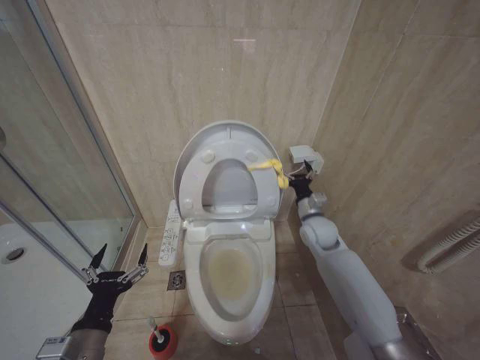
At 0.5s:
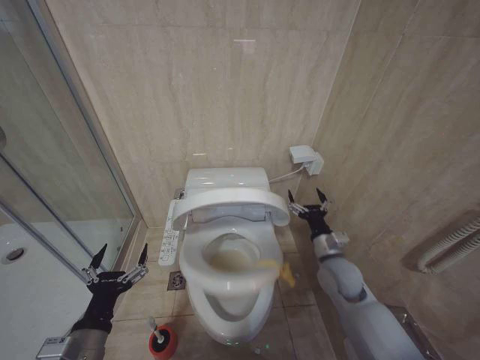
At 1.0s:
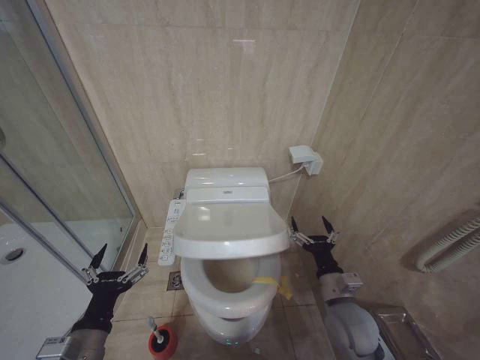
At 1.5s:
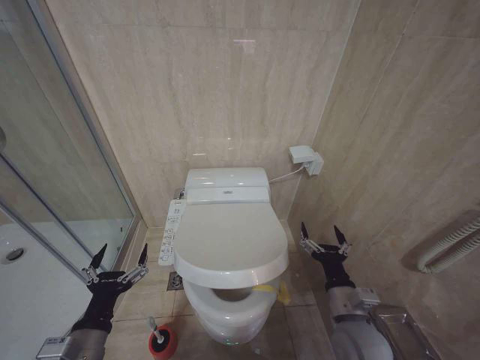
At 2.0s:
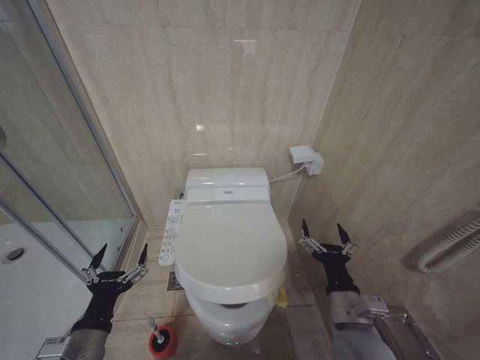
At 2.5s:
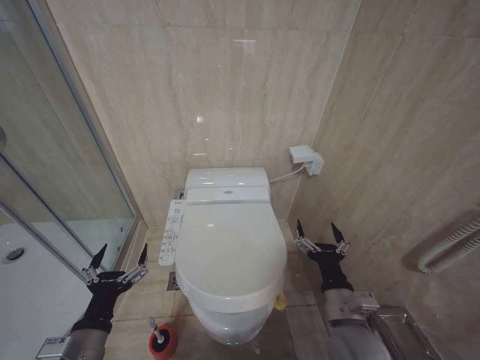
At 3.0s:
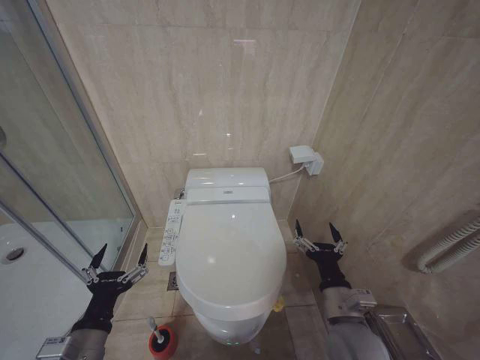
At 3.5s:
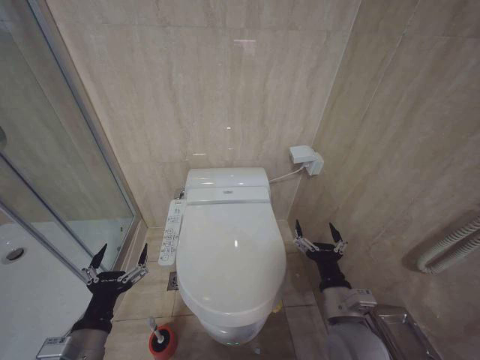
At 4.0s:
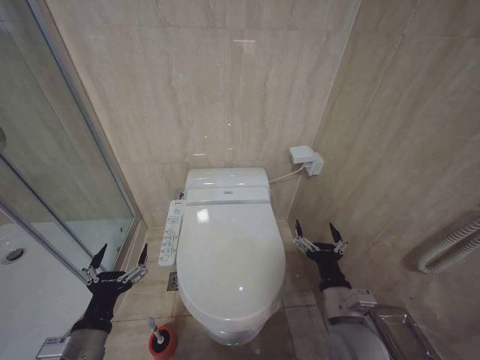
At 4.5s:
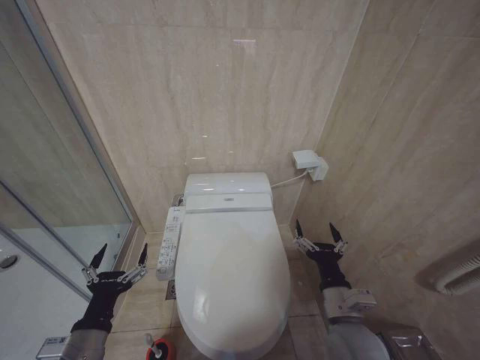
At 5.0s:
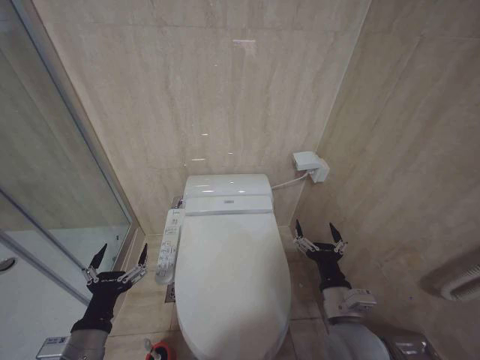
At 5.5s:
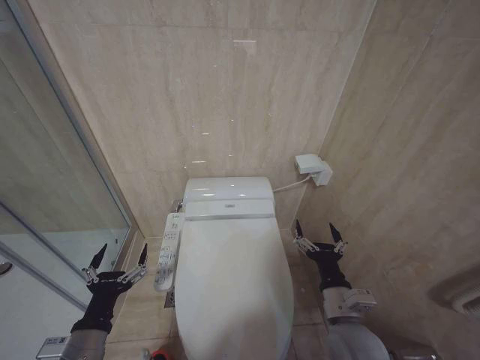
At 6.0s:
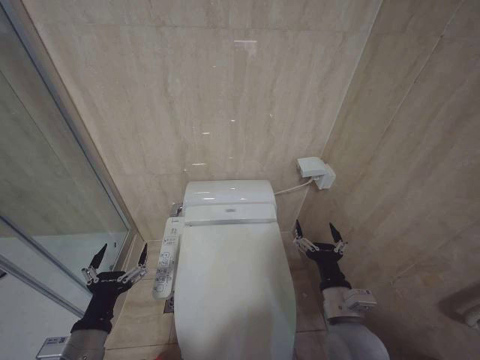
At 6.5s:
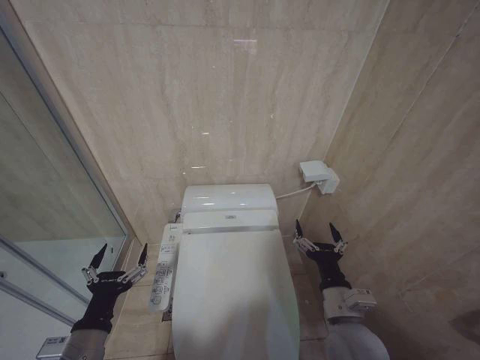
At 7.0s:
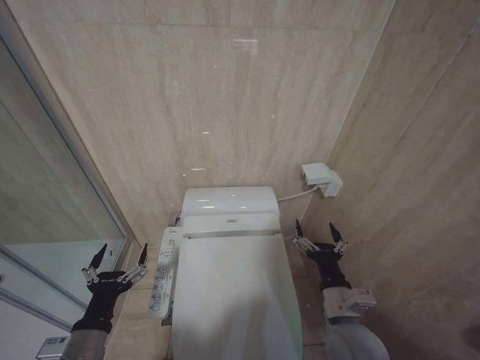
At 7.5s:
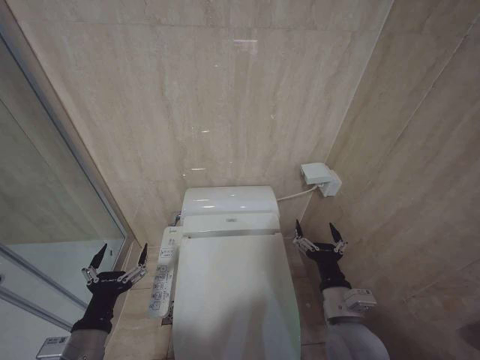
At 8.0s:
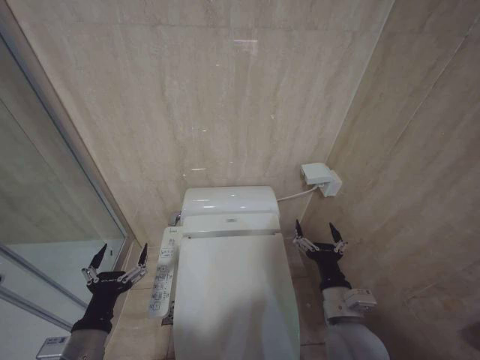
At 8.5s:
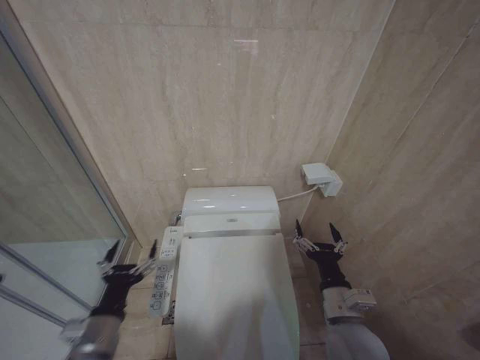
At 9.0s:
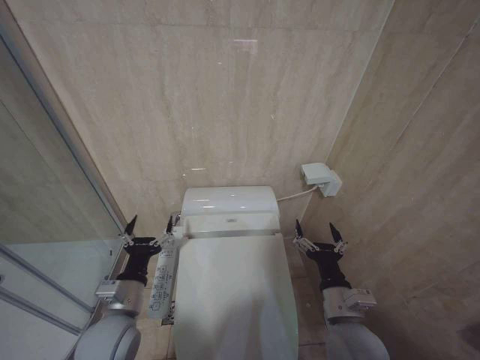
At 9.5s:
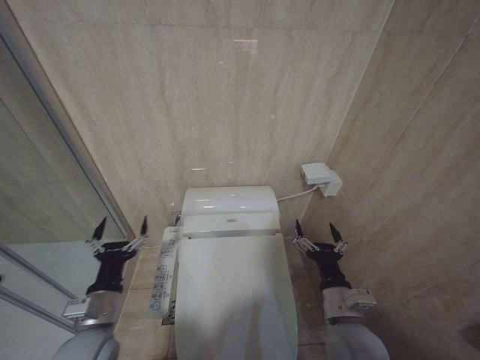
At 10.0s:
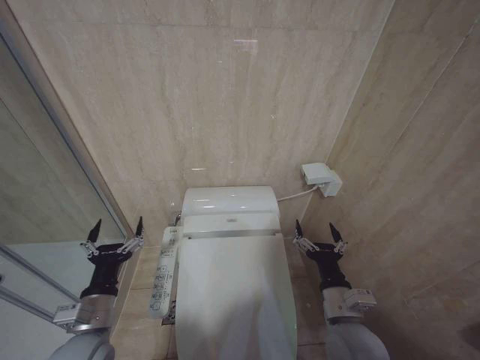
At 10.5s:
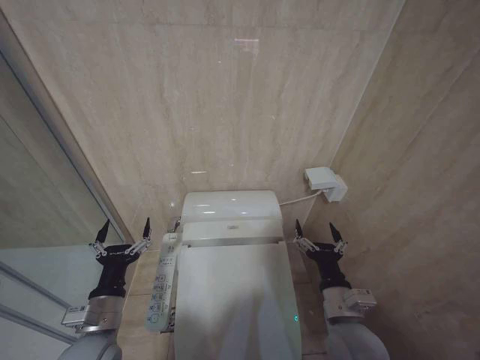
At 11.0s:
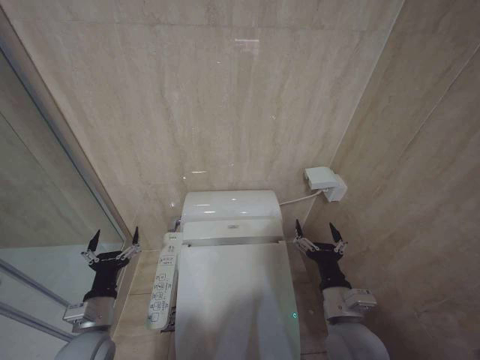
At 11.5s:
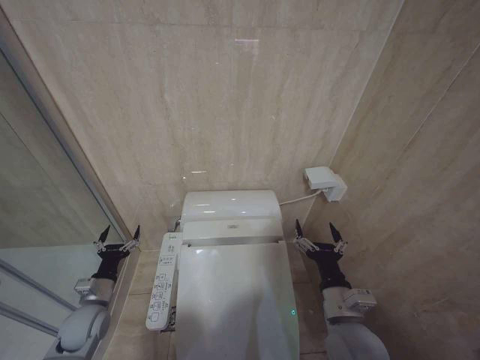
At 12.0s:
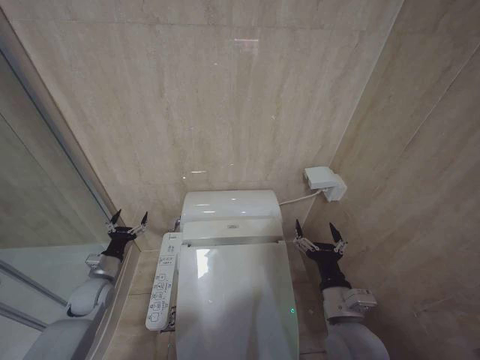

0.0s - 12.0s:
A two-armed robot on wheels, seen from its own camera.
Task of the whole recording: Open the toilet lid, clean the toilet bowl with a toilet brush, close the toilet lid, and flush.
0.0s - 2.0s: The right gripper shifts approximately 30 cm backward.
2.0s - 8.0s: Neither gripper changes place.
8.0s - 10.0s: The left gripper shifts approximately 5 cm forward.
10.0s - 12.0s: The left gripper travels forward, downward and to the left by about 20 cm.

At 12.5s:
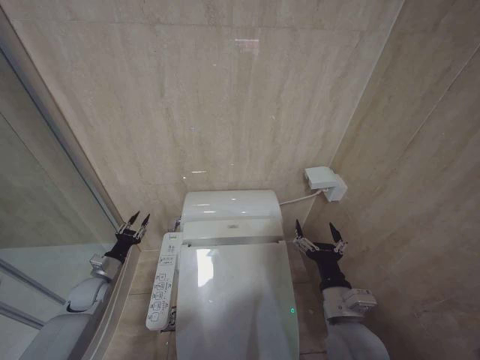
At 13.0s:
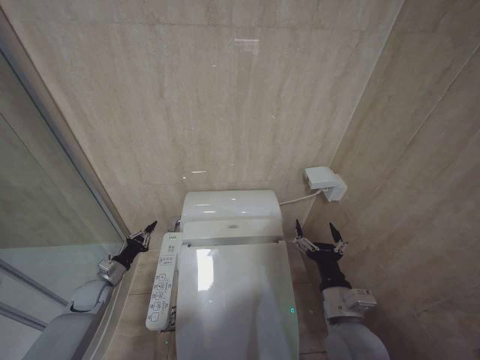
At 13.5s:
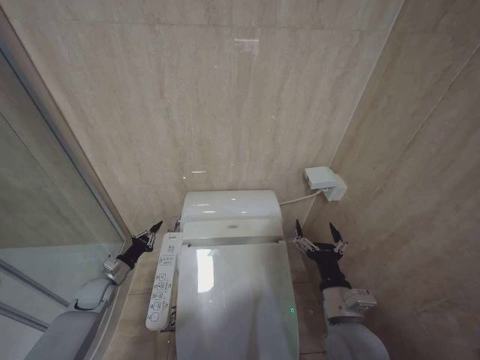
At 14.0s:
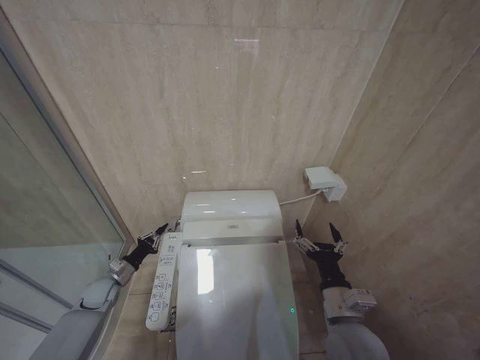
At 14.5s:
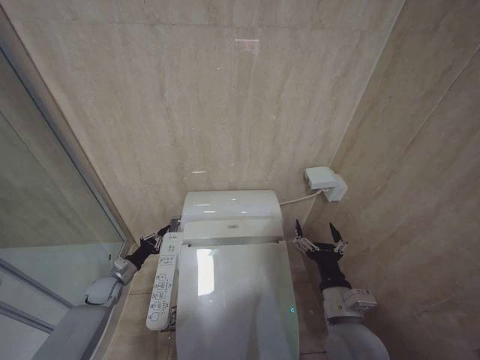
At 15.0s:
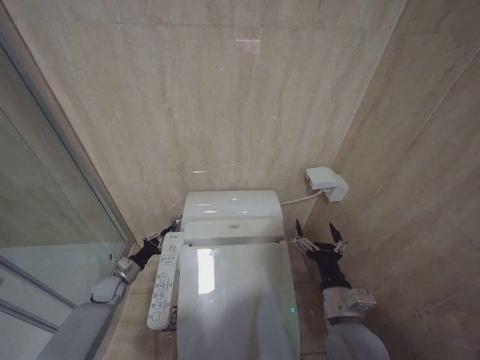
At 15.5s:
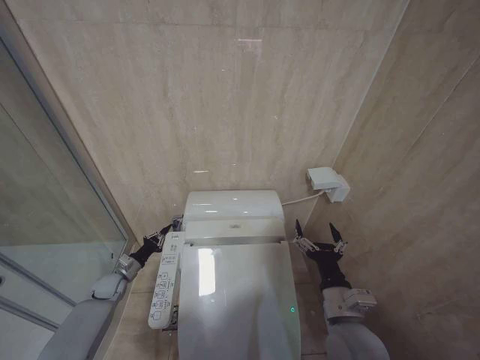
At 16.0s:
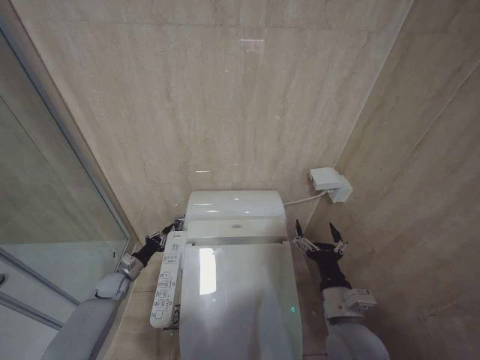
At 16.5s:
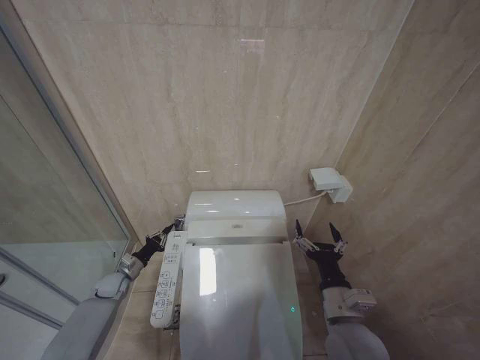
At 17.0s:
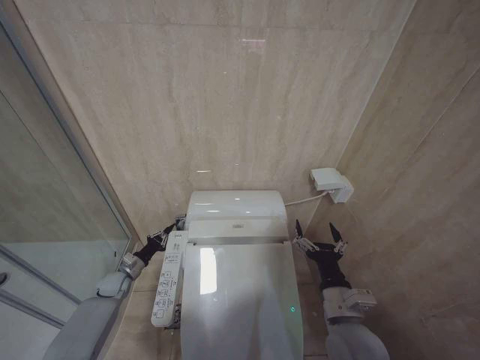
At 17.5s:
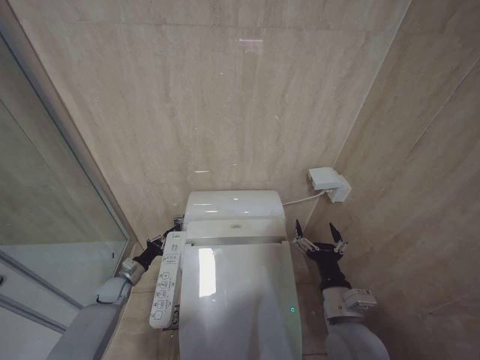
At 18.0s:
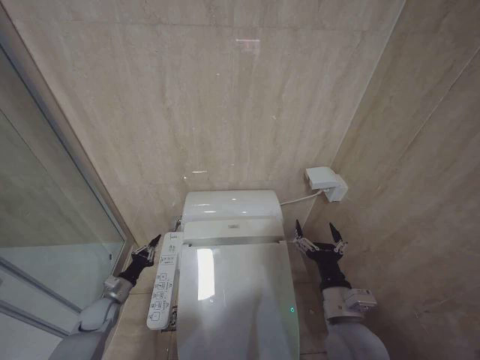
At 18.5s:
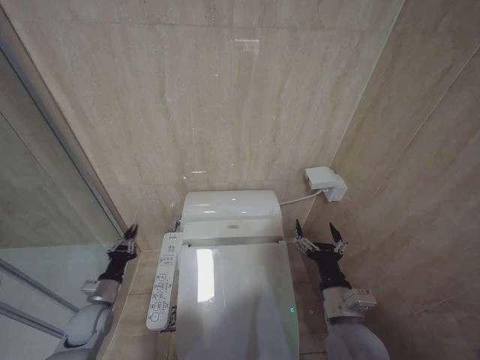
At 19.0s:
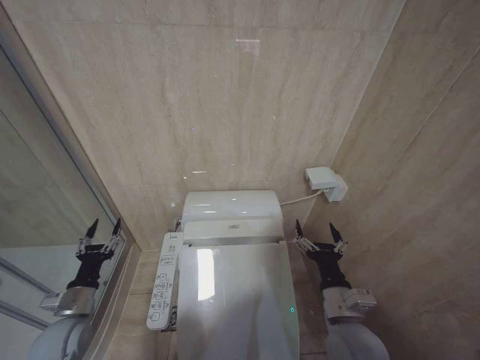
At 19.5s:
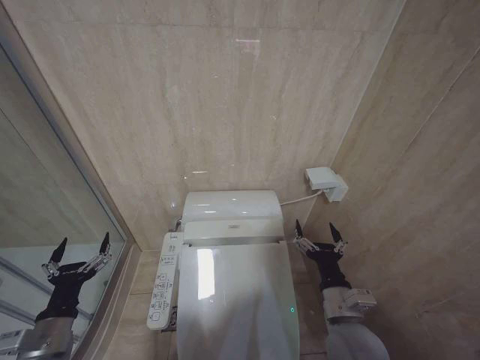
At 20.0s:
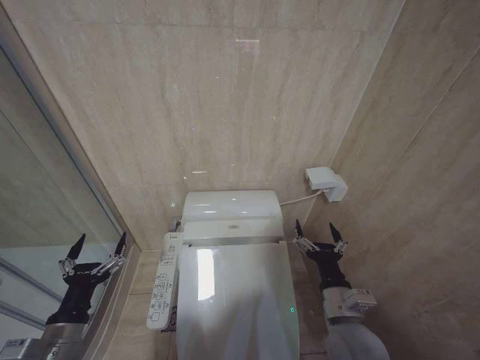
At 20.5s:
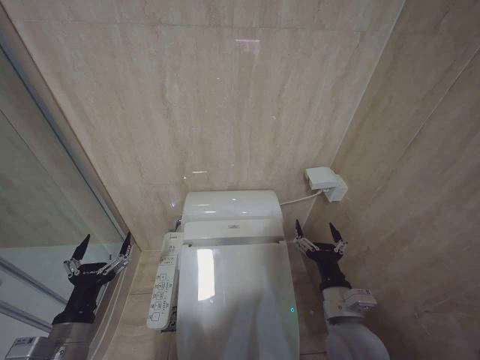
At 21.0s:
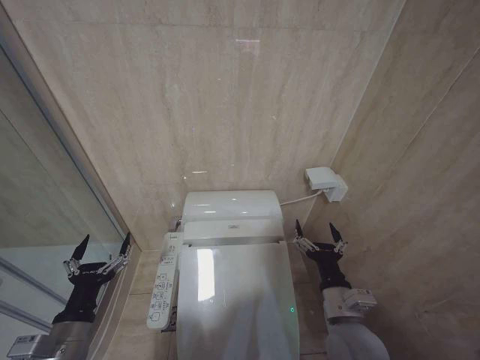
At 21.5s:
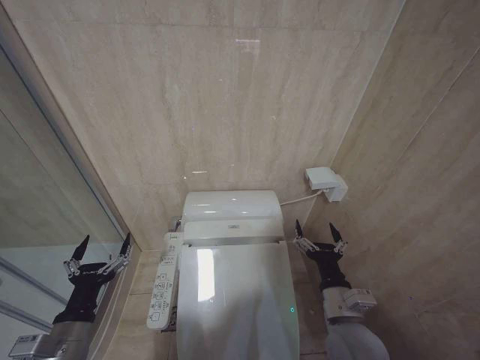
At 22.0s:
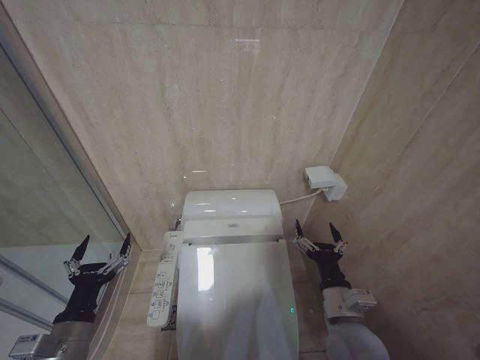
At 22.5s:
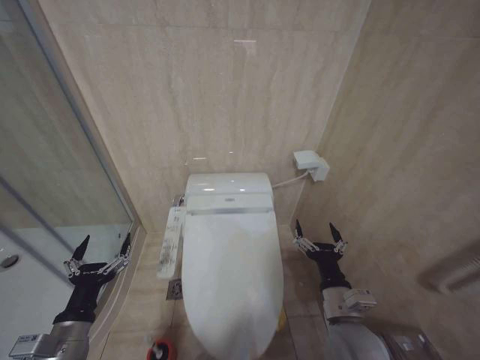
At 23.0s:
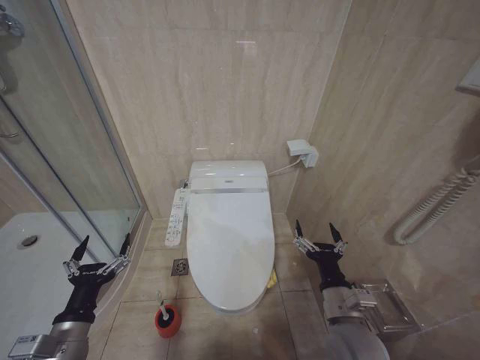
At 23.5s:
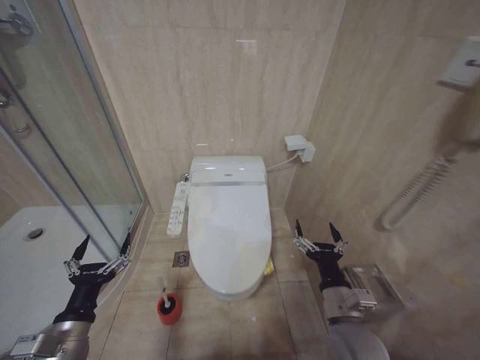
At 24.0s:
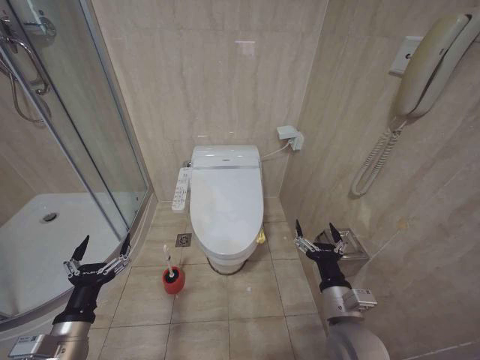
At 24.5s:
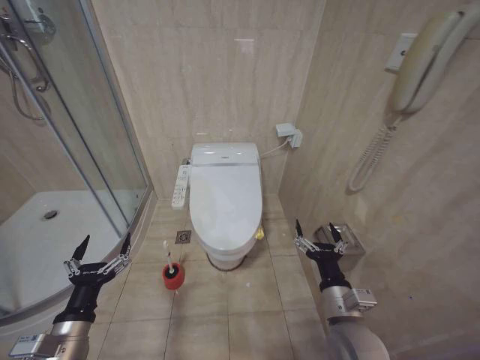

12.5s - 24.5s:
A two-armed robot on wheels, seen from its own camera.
Task of the whole recording: Open the toilet lid, clean the toilet bowl with a toilet brush, close the toilet lid, and flush.
12.5s - 14.5s: The left gripper changes place by some 5 cm, and closes up.
14.5s - 16.5s: The grippers make only small movements.
16.5s - 18.5s: The left gripper shifts roughly 10 cm backward.
18.5s - 20.5s: The left gripper heads backward, upward and to the right, covering approximately 25 cm, and opens up.
20.5s - 22.5s: Both grippers stay put.

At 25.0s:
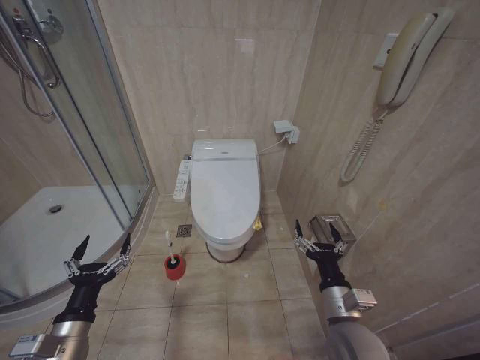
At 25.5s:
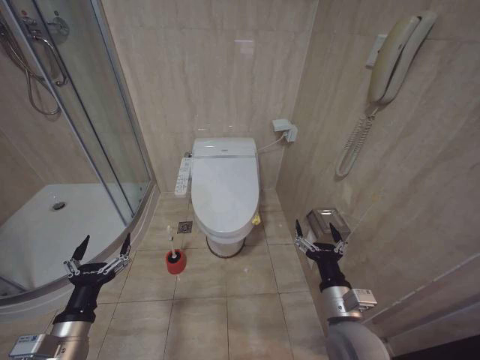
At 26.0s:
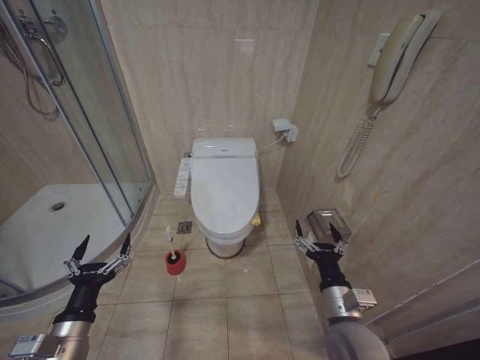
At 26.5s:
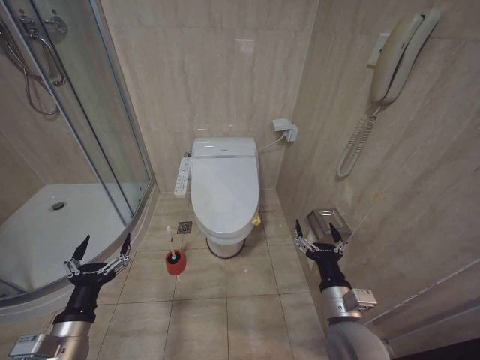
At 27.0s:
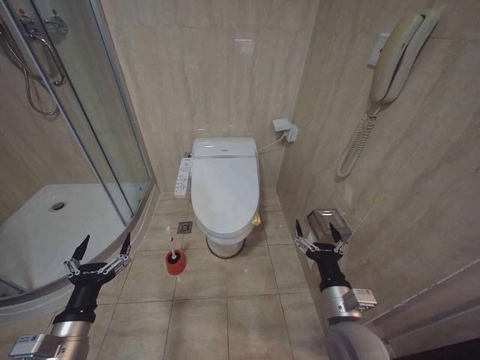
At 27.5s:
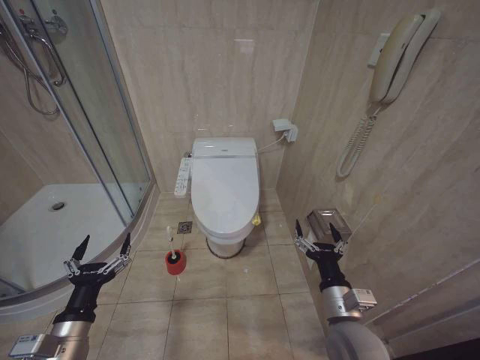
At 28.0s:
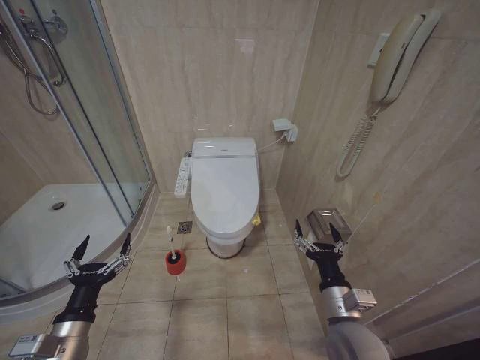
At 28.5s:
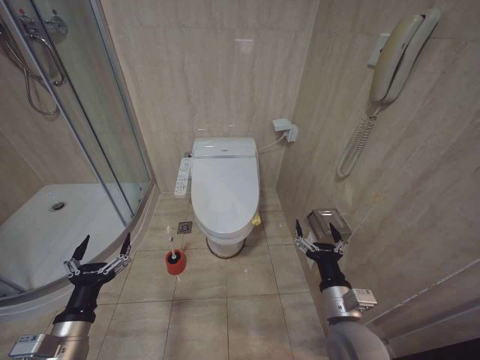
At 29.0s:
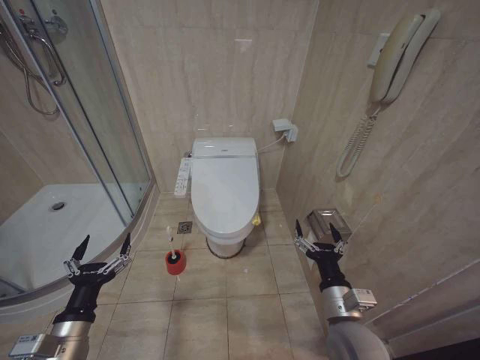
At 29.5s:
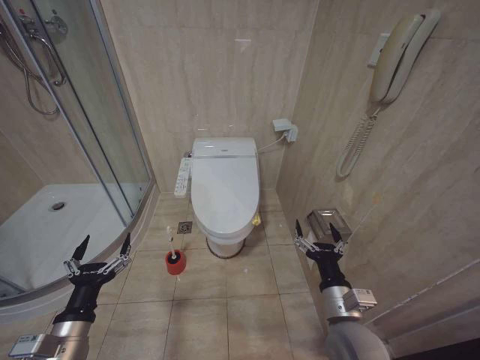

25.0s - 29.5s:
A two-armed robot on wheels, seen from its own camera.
Task of the whole recording: Open the toilet lid, clean the toilet bowl with a toilet brush, close the toilet lid, and flush.
25.0s - 29.5s: The two grippers keep their place.
